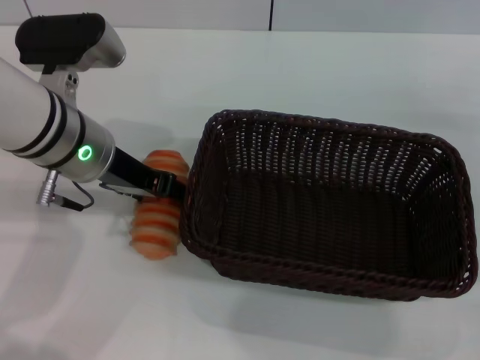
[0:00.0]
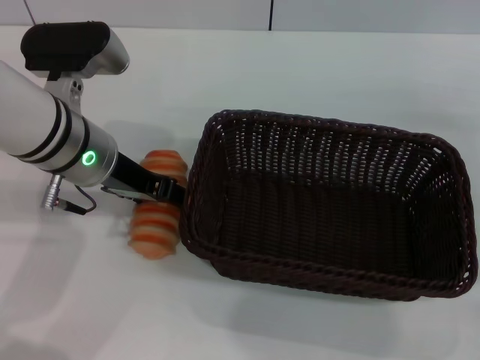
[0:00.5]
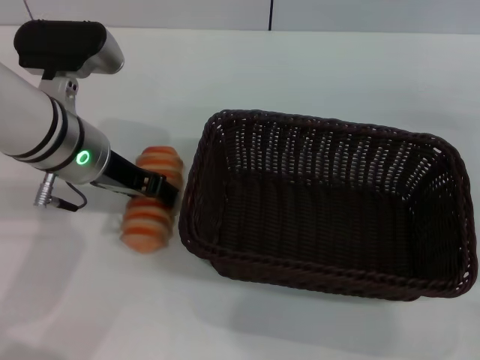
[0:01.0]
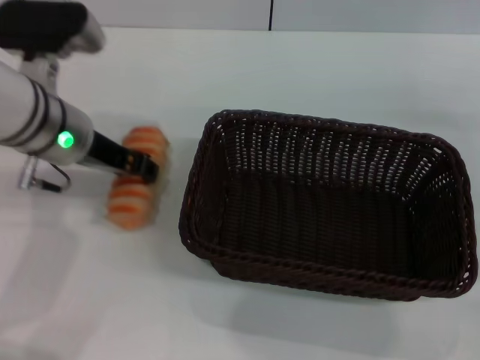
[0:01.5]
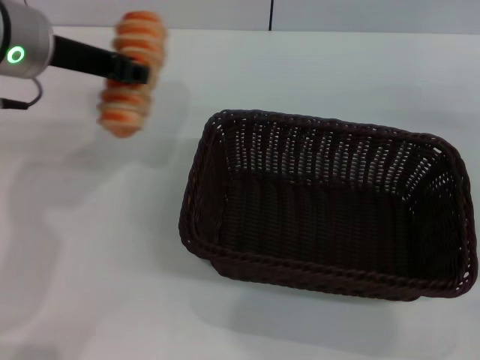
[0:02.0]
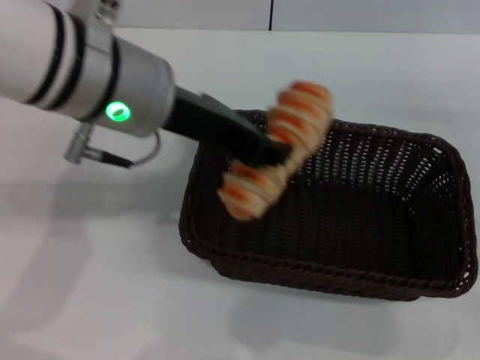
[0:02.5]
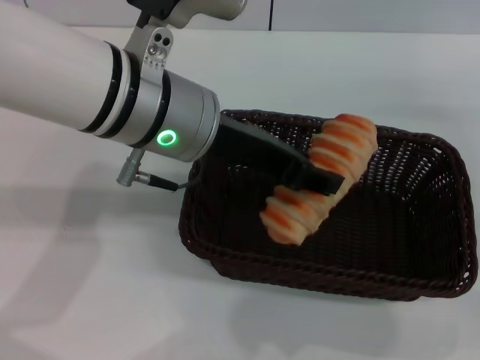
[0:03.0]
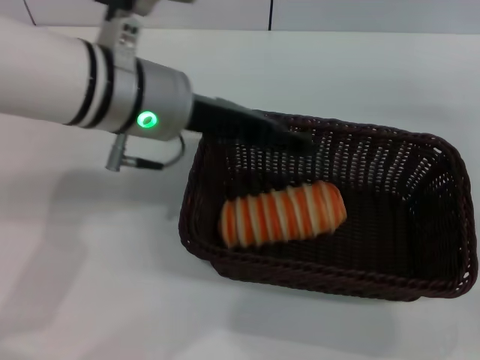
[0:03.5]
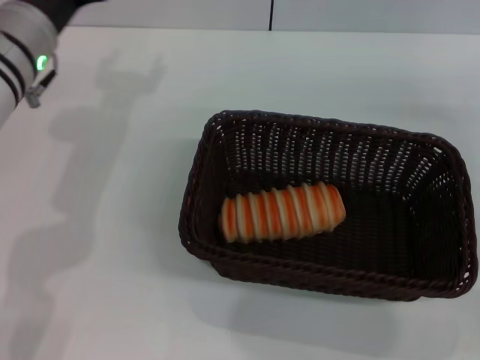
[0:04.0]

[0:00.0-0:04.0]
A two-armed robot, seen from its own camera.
Step, 0:02.0 to 0:03.0: Place the long bread into the dark basket with the left gripper.
0:00.0 to 0:02.0: The left gripper heads upward, covering roughly 10 cm, and closes.
0:02.0 to 0:04.0: The left gripper goes about 5 cm downward, travels to the right and back again, roughly 10 cm each way, and opens its fingers.

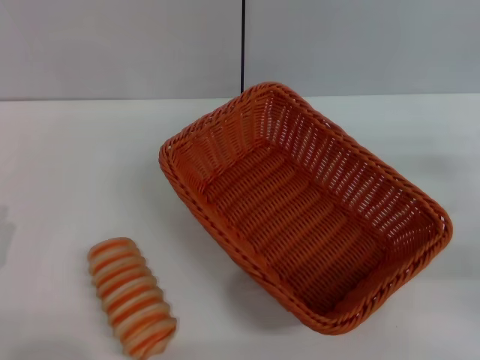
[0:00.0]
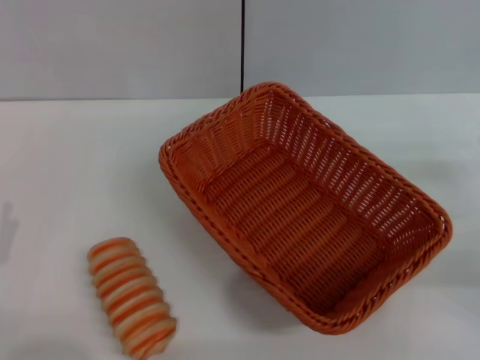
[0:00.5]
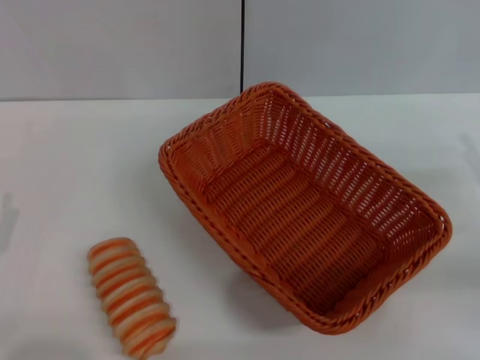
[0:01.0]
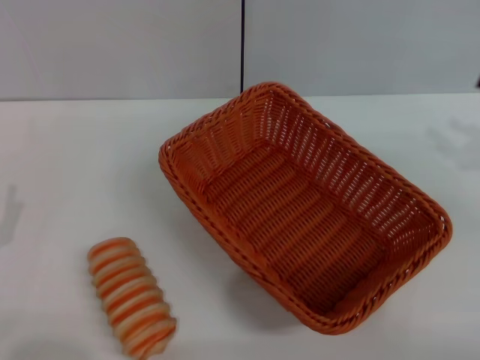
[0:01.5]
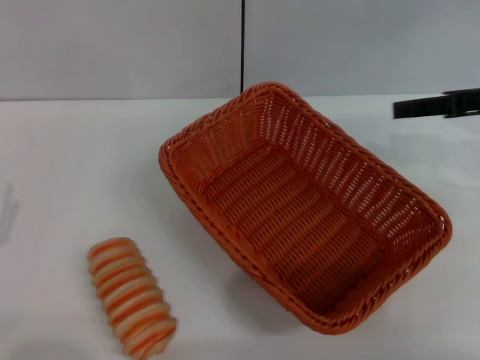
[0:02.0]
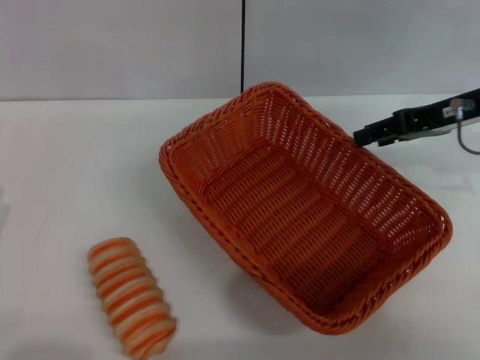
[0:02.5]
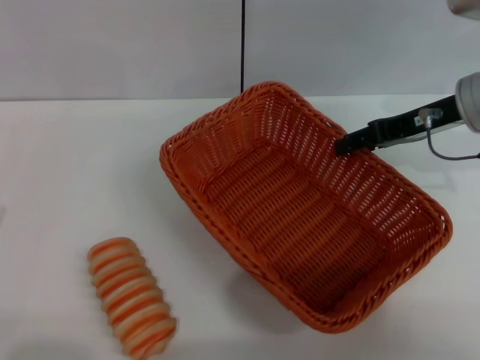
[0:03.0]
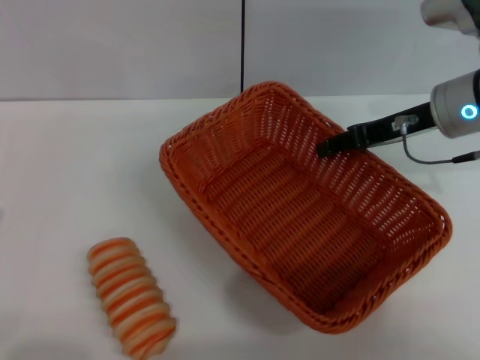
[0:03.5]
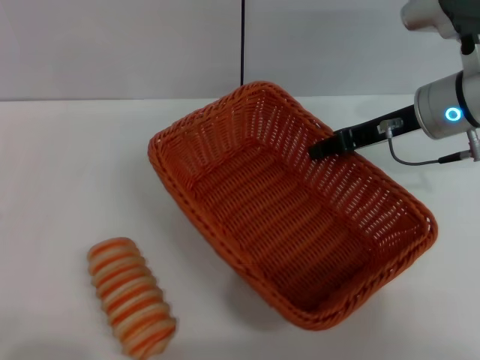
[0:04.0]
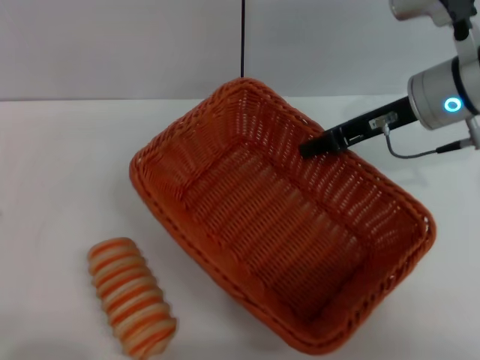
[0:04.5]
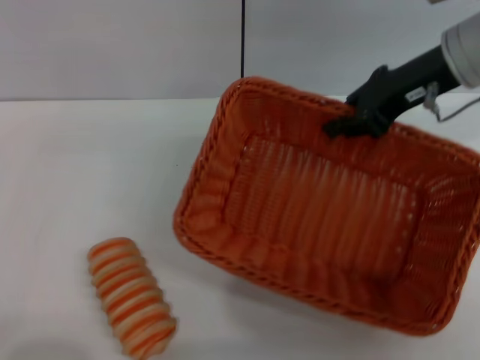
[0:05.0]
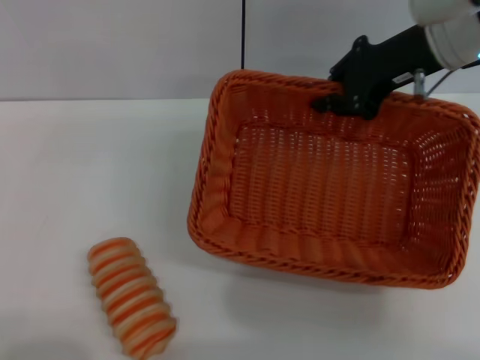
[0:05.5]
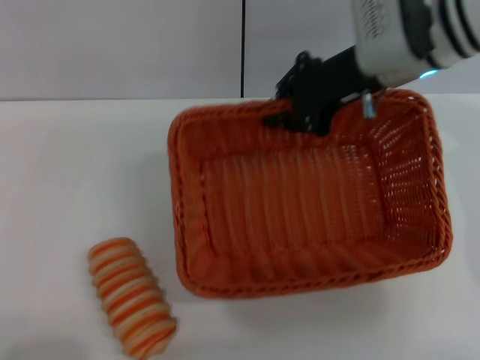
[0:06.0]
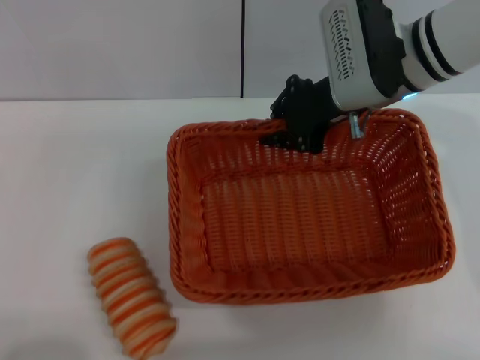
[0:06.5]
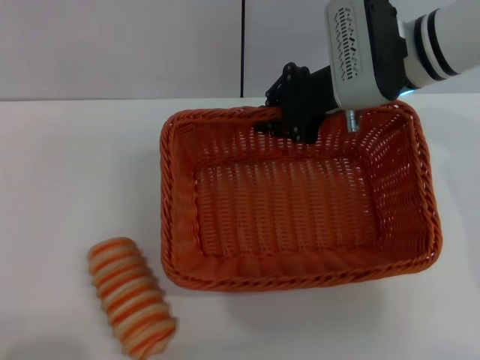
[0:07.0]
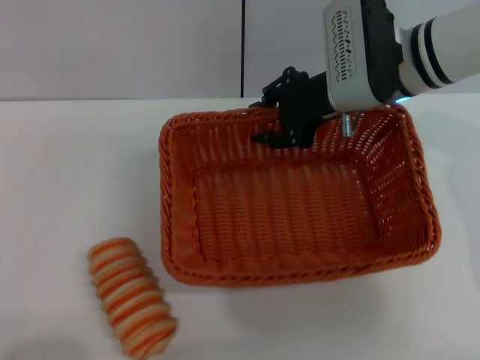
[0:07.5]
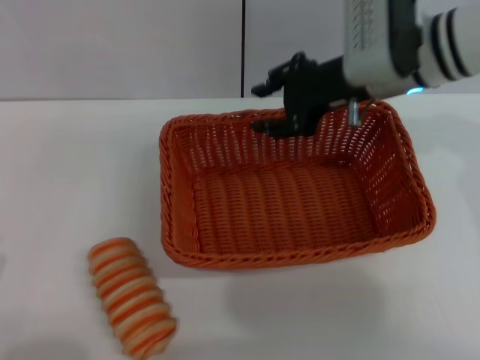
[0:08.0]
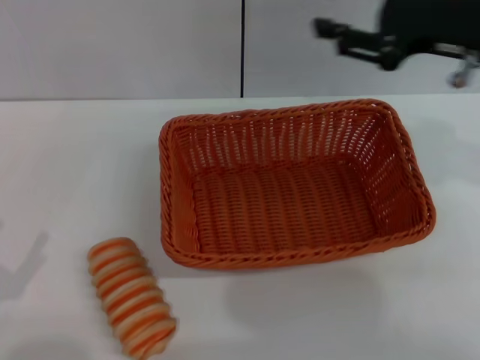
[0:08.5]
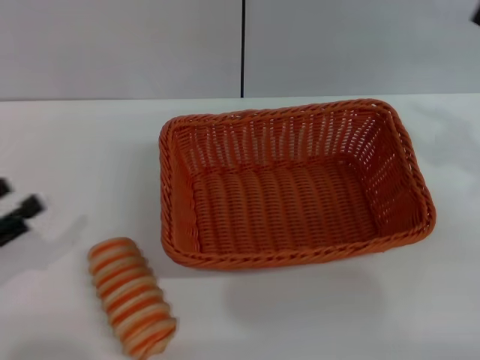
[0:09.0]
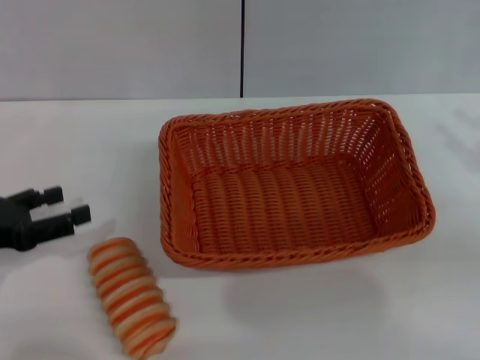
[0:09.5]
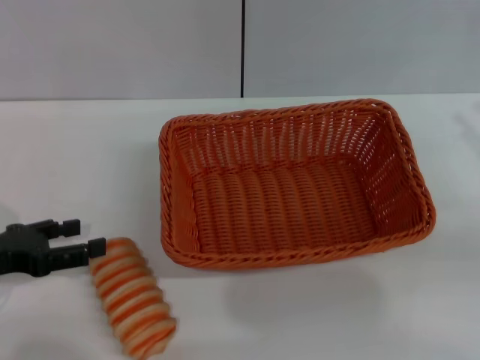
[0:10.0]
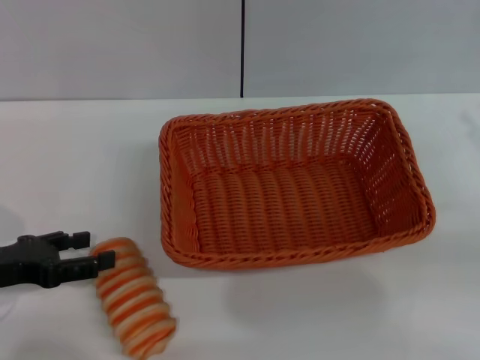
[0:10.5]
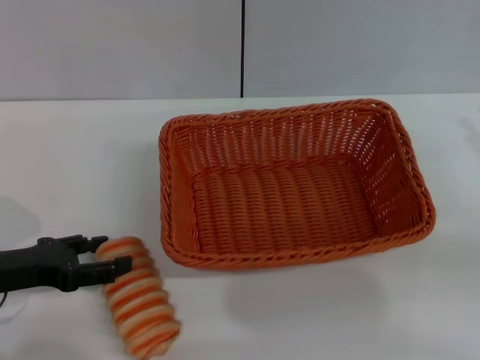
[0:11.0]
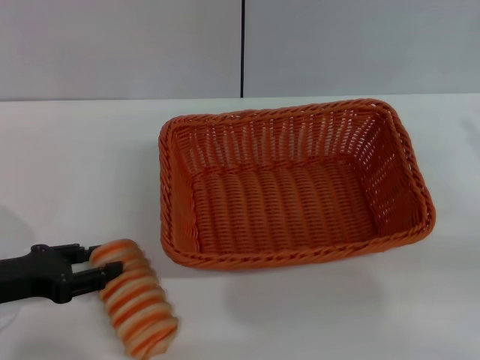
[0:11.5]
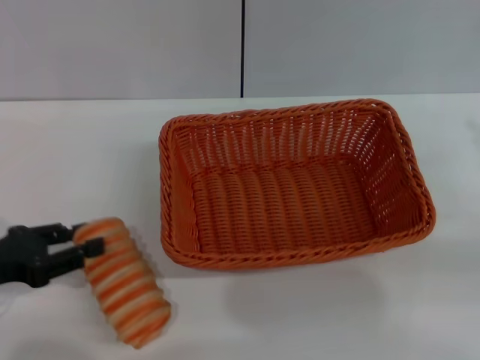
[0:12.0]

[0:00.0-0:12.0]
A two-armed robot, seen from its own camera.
Step, 0:00.0 to 0:05.0: Pick up the light basket with the right gripper.
Step, 0:05.5 to 0:08.0: Place the light basket in the center of view with the right gripper.
0:00.0 to 0:02.0: The right gripper goes approximately 15 cm upward, forward and to the left.
0:02.0 to 0:04.0: The right gripper is displaced to the left and downward by approximately 10 cm.
0:04.0 to 0:06.0: The right gripper goes about 10 cm to the left and upward, and closes its fingers, while the left gripper moves backward, some 5 cm.
0:06.0 to 0:08.0: The right gripper opens its fingers.
0:08.0 to 0:10.0: The left gripper shifts some 15 cm forward, while the right gripper is displaced to the right and backward by some 25 cm.
0:10.0 to 0:12.0: The left gripper closes its fingers.

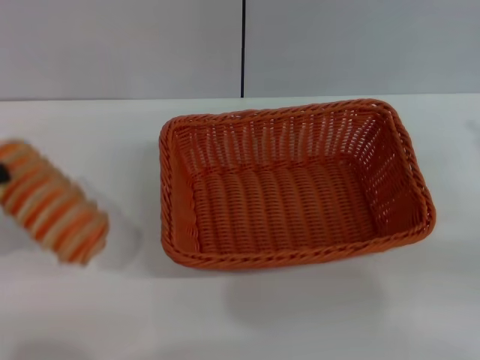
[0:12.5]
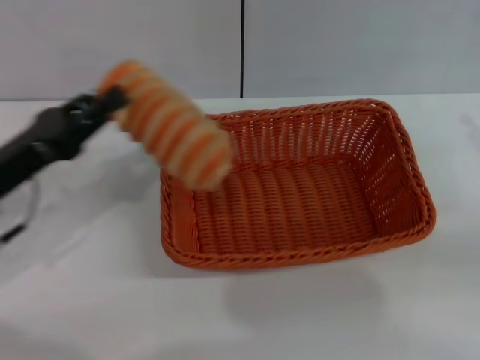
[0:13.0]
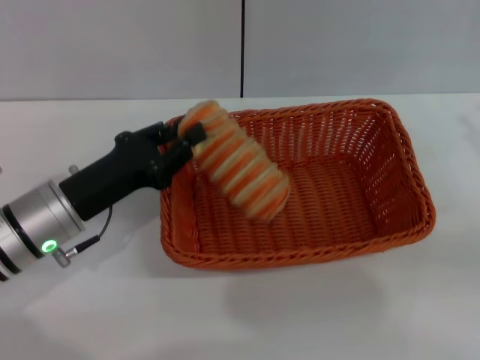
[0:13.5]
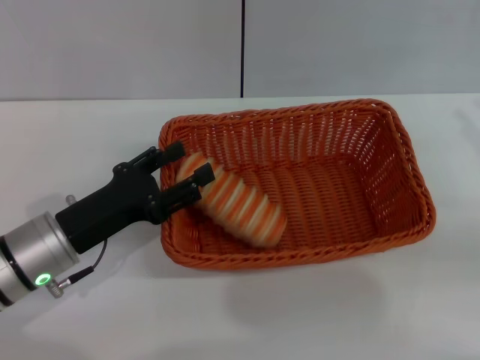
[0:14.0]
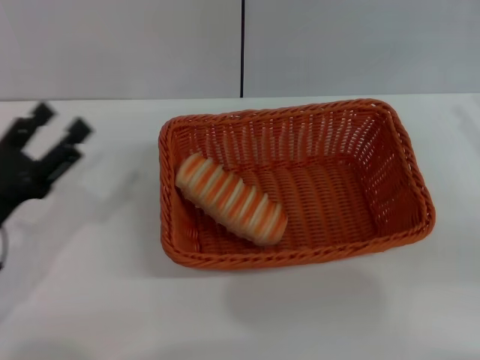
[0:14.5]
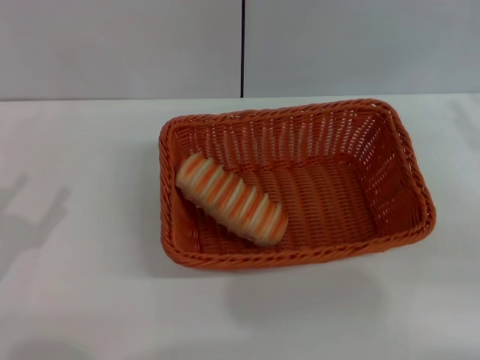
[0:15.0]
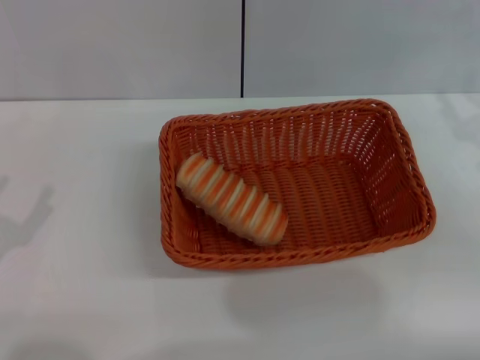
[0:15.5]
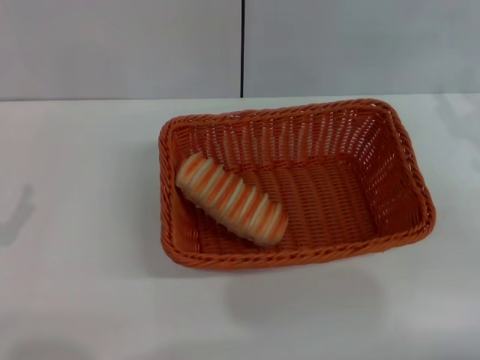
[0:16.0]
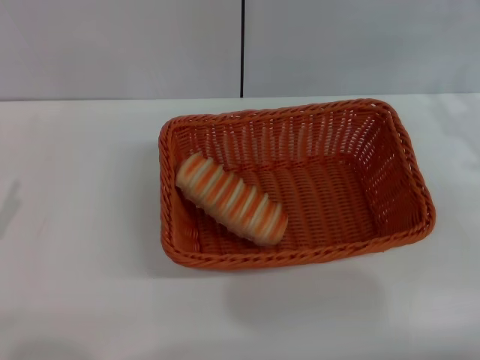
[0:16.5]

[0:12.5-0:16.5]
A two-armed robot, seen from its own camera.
Step, 0:13.0 to 0:14.5: Place the long bread into the dark basket with the left gripper.
0:12.5 to 0:14.5: The left gripper is displaced to the right and downward by about 10 cm, and opens.
0:14.5 to 0:16.5: The left gripper travels to the left and backward by approximately 10 cm.
